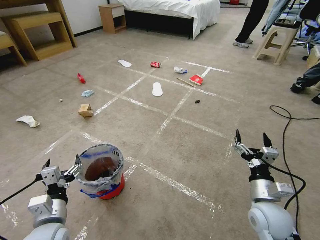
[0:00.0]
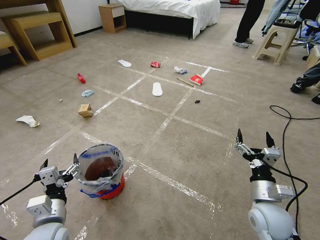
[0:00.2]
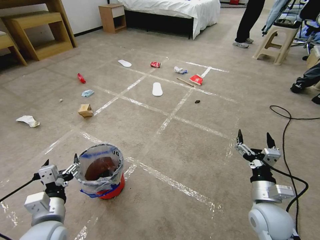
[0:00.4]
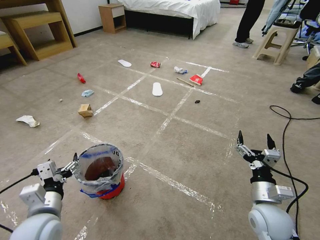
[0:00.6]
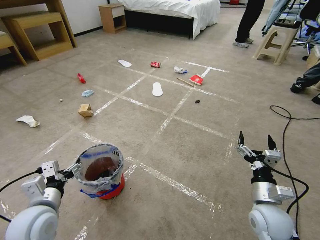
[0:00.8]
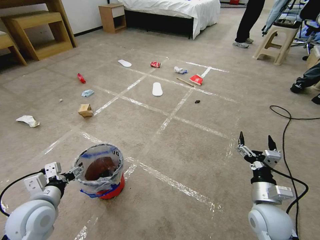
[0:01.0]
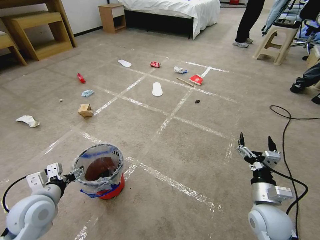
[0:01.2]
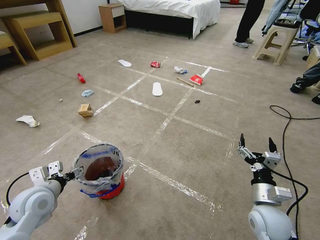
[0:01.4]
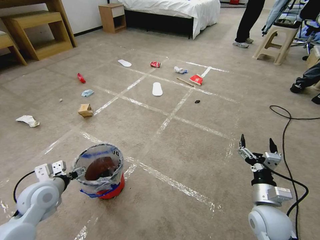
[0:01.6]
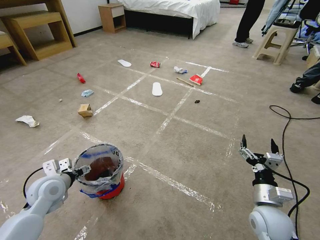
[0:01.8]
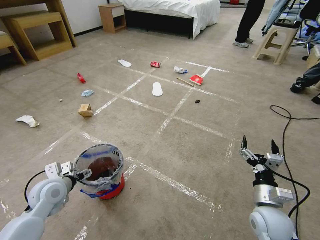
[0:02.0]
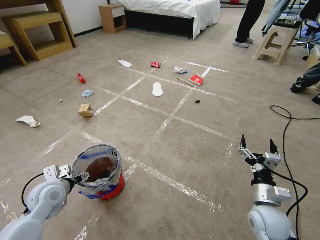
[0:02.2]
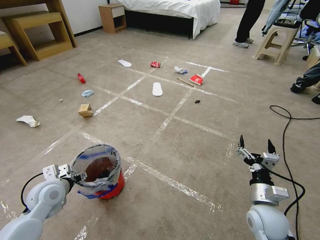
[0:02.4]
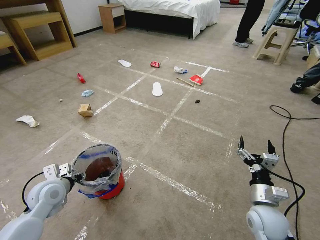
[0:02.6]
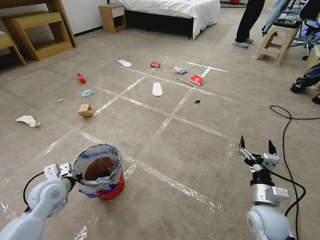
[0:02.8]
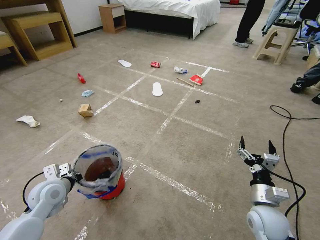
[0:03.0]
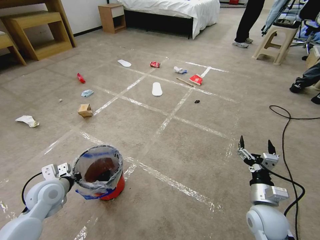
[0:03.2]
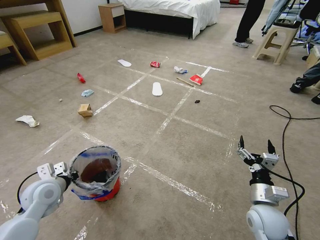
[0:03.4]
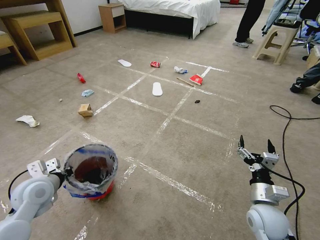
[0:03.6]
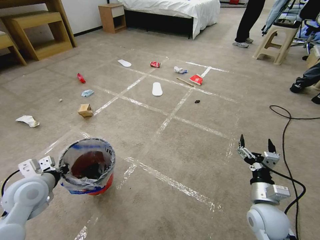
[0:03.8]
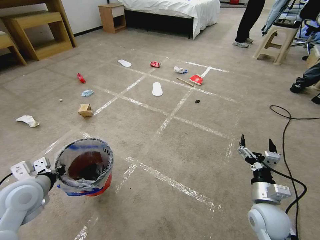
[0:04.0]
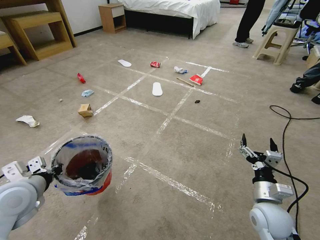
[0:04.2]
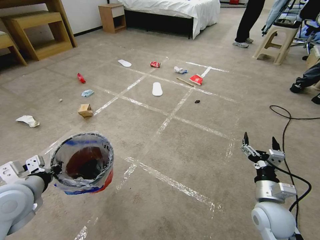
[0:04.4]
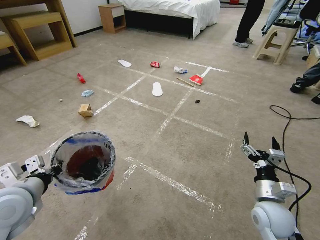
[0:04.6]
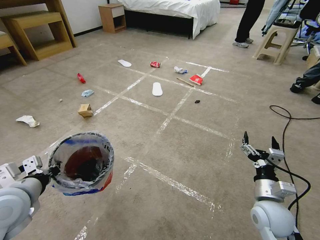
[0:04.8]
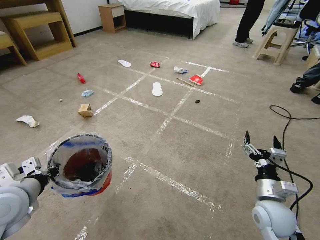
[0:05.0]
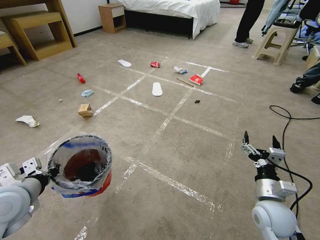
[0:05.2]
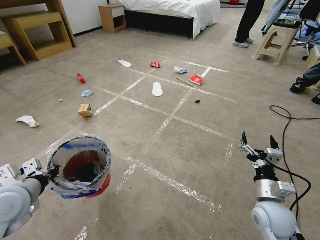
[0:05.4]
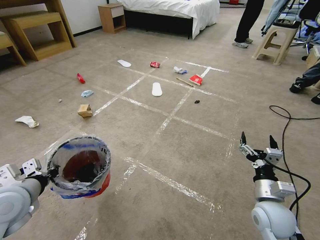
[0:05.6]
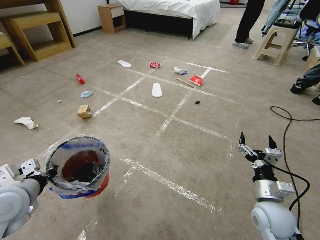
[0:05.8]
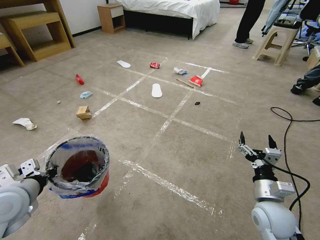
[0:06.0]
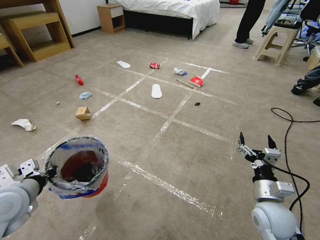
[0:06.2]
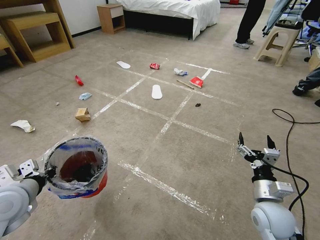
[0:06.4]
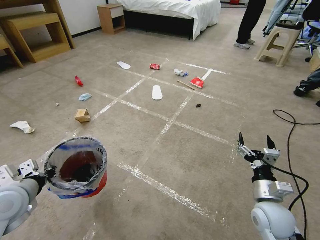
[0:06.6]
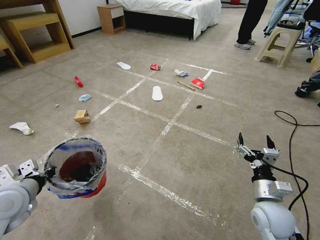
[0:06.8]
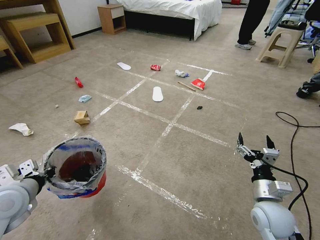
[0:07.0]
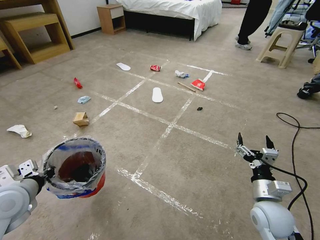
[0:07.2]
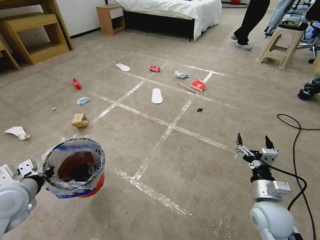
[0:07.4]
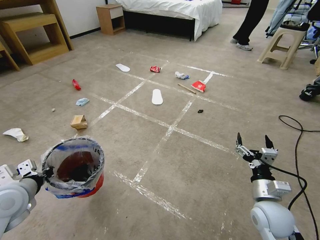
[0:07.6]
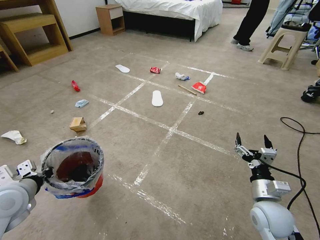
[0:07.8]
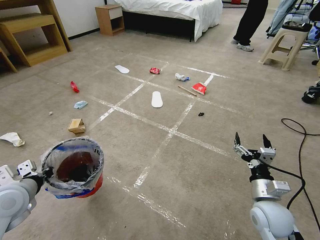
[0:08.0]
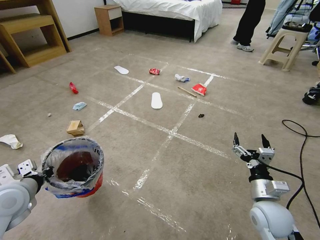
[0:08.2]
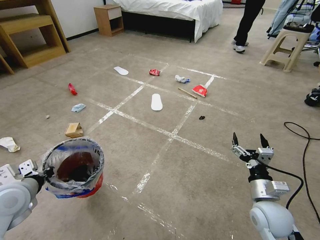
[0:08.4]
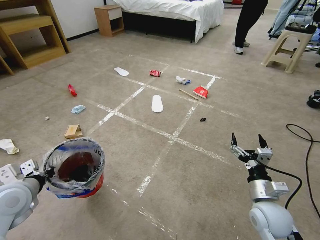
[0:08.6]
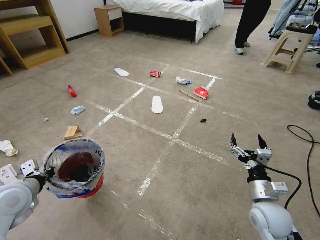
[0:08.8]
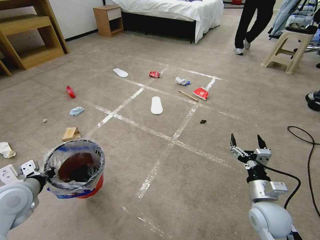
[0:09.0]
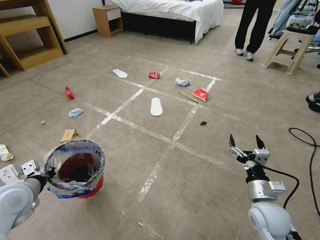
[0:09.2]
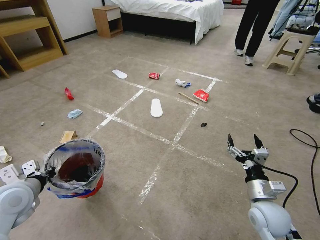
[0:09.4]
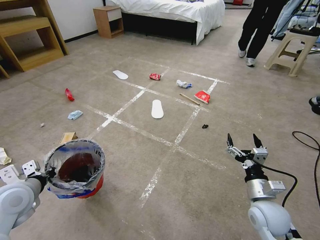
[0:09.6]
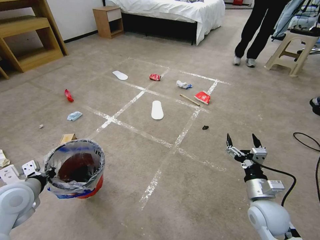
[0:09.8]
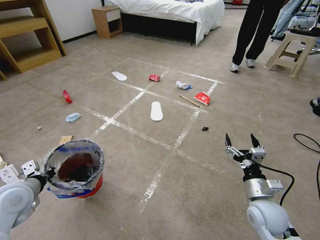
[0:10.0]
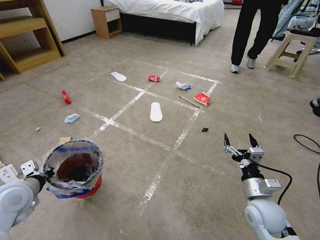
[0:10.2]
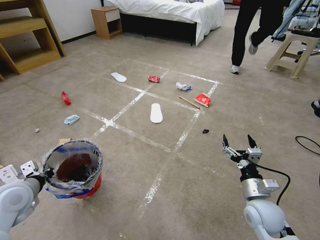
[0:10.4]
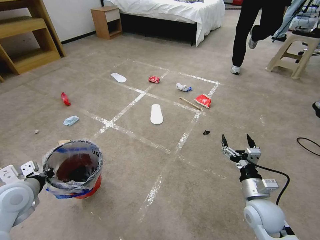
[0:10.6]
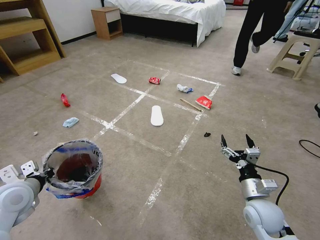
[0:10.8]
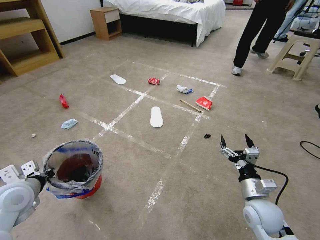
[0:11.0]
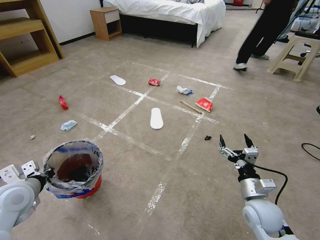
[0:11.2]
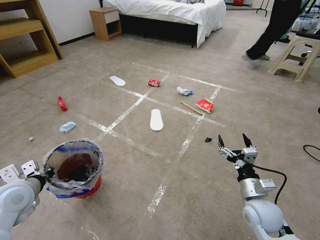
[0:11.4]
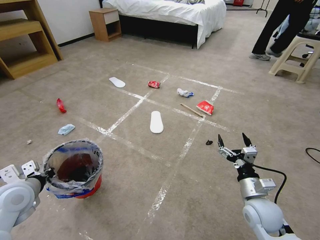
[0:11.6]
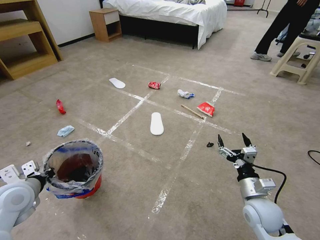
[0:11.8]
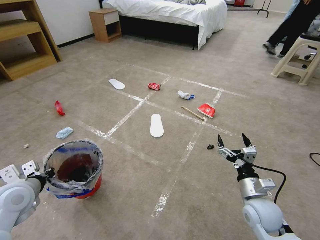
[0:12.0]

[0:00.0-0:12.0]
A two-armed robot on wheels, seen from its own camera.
Task of the whole recording: Pick up the trash bin and place the garbage on the floor into it.
0:01.6 to 0:03.0: The left gripper closes up.
0:03.0 to 0:04.4: The left gripper is displaced upward and backward by approximately 15 cm.
0:04.4 to 0:07.6: The grippers stay close to where they were, moving slightly.
0:09.0 to 0:10.4: The grippers make only small movements.

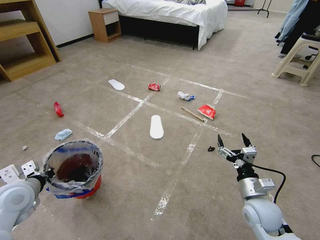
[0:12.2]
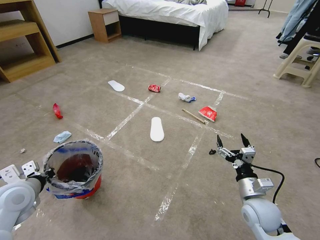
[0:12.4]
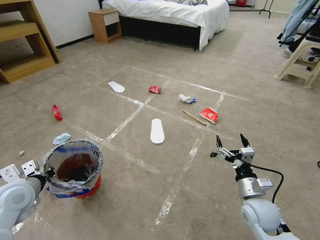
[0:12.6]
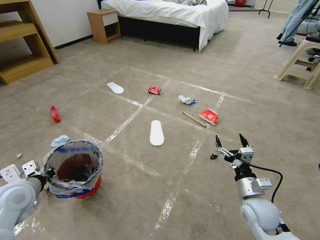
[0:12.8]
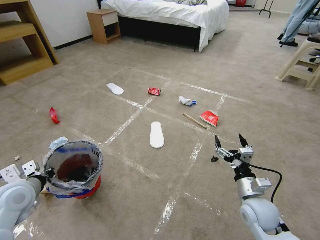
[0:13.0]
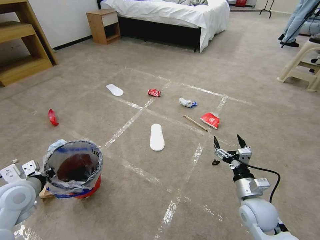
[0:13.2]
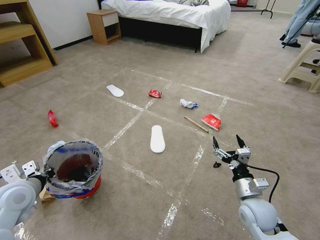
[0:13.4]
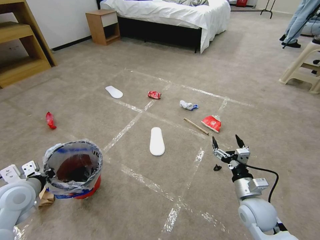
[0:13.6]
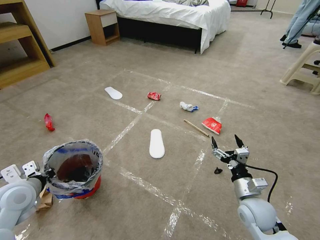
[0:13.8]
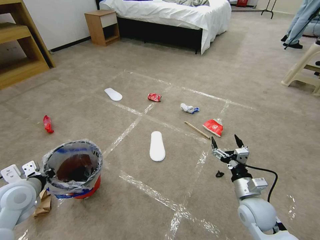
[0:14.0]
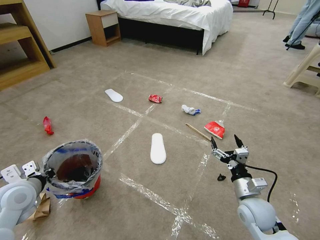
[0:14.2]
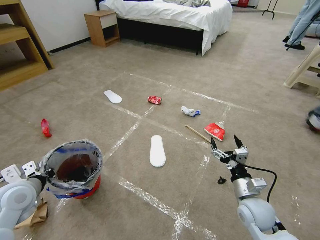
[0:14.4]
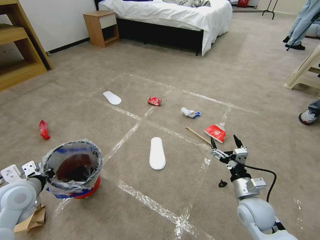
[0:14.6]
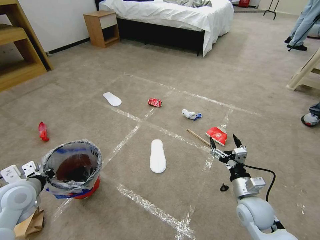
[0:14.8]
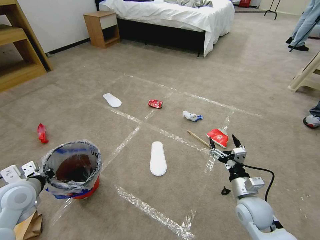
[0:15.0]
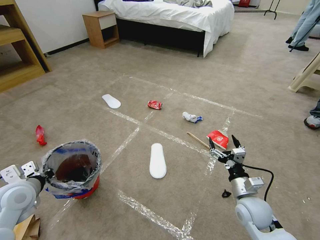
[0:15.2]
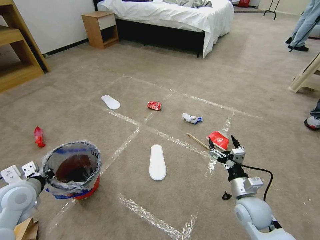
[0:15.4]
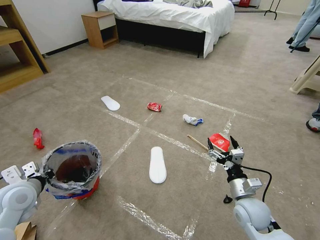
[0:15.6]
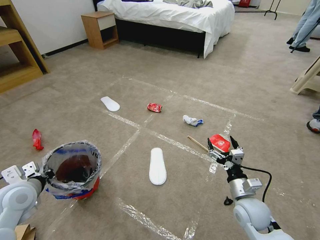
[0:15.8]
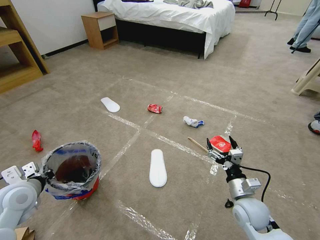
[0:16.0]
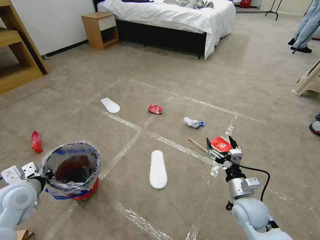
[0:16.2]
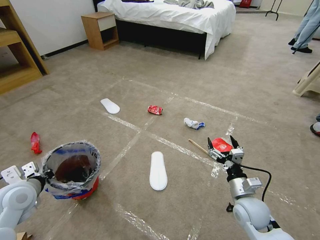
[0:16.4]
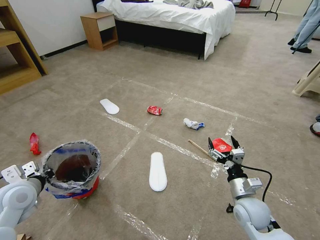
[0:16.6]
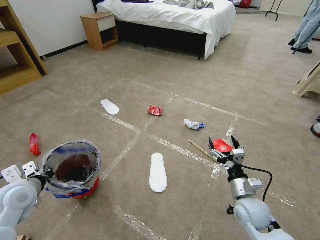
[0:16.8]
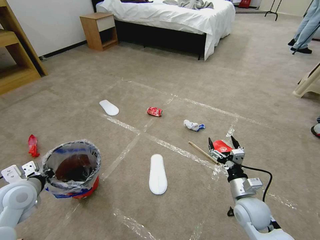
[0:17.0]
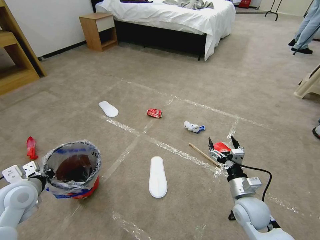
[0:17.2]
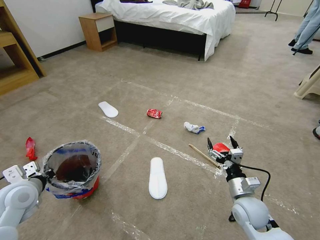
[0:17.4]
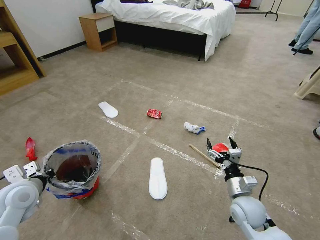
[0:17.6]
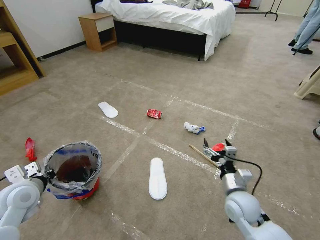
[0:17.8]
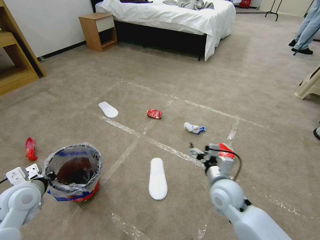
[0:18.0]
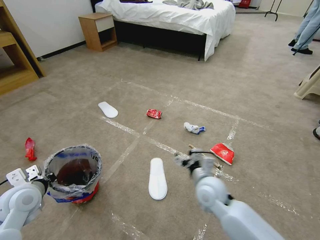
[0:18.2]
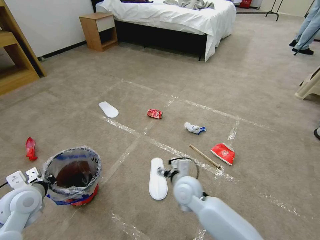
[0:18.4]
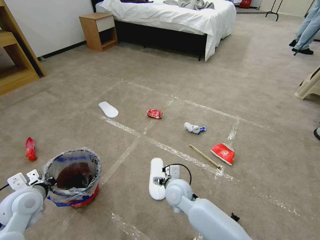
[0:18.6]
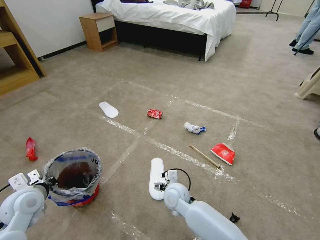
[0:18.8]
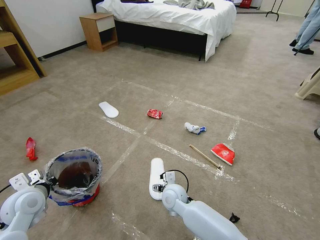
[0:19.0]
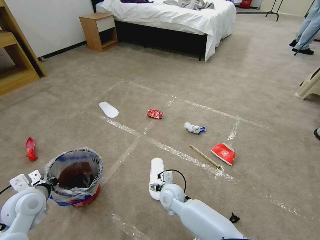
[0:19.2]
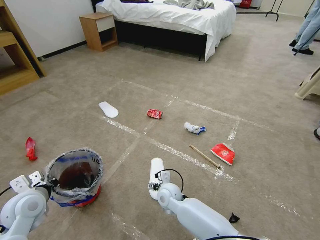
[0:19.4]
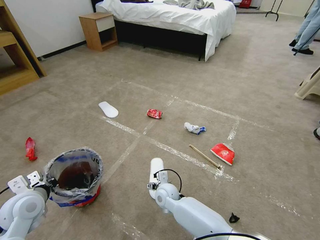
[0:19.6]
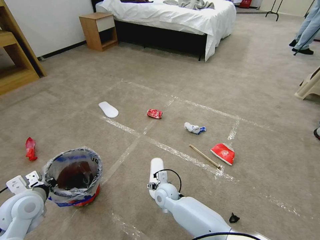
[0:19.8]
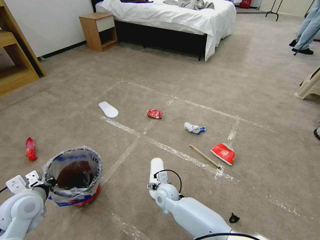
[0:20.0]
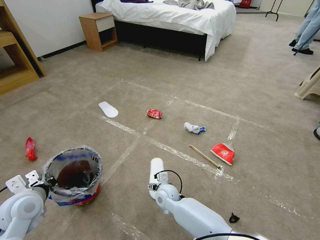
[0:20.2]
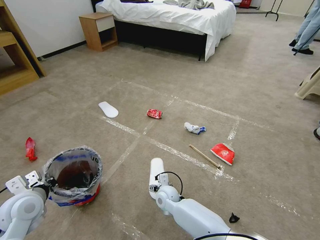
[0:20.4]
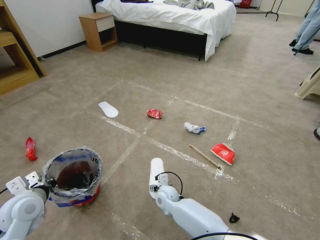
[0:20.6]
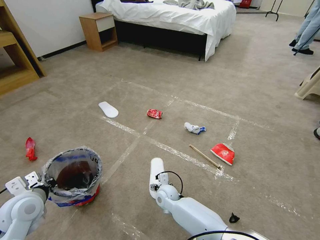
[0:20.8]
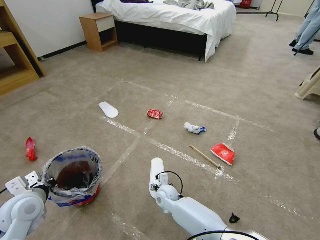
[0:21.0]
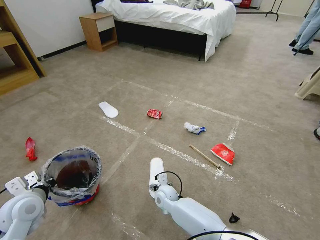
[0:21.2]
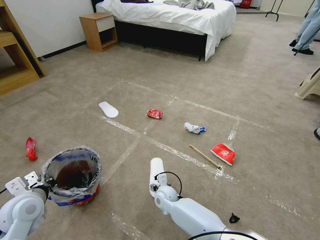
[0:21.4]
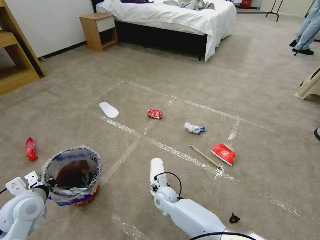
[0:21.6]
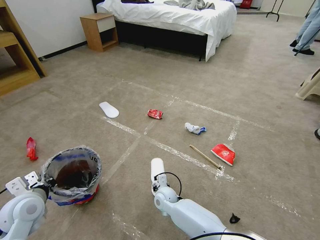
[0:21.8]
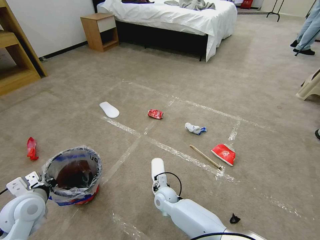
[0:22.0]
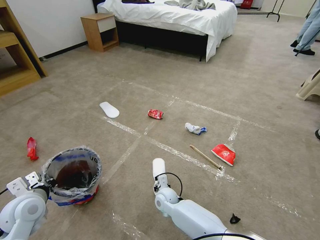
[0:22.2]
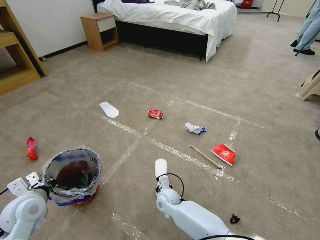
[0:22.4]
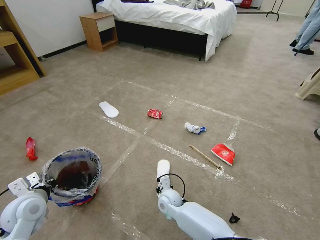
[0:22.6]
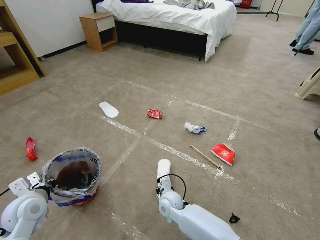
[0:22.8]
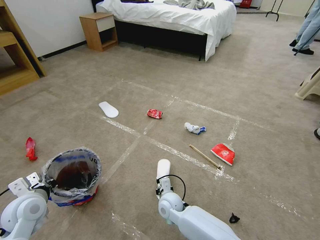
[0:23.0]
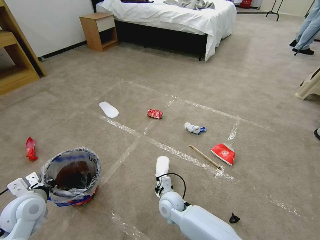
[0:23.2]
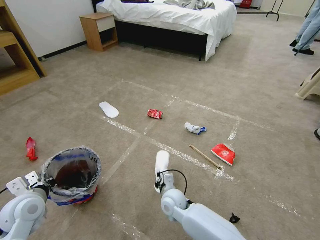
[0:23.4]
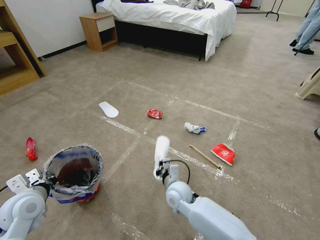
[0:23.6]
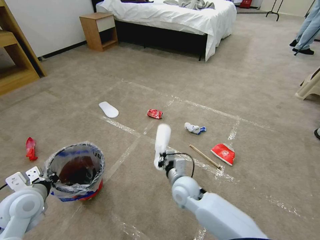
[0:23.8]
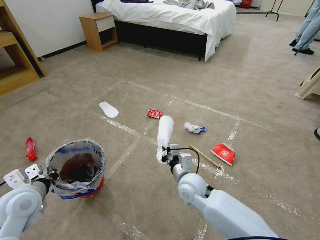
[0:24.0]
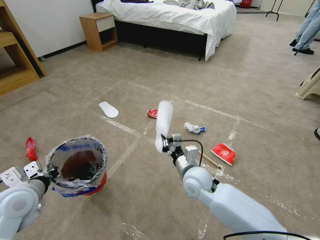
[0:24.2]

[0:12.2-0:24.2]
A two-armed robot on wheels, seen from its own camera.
Task of the whole recording: Pick up the trash bin and place the garbage on the floor into it.
0:12.2 to 0:13.8: Both grippers stay about where they are.
0:13.8 to 0:15.2: Both grippers stay put.
0:15.2 to 0:16.6: The two grippers keep their place.
0:16.6 to 0:18.2: The right gripper moves to the left, roughly 10 cm.
0:18.2 to 0:19.8: The right gripper shifts some 20 cm to the left and downward.
0:19.8 to 0:21.2: There are only small adjustments of the grippers.
0:21.2 to 0:22.6: The right gripper closes up.
0:22.6 to 0:24.2: The right gripper is displaced upward and to the right by about 20 cm. Meanwhile the left gripper goes approximately 5 cm upward.
